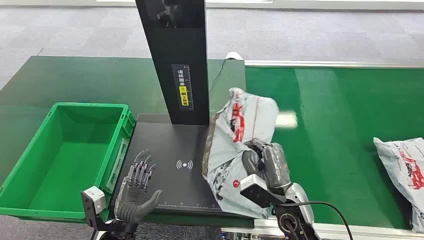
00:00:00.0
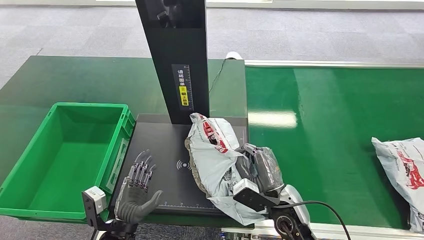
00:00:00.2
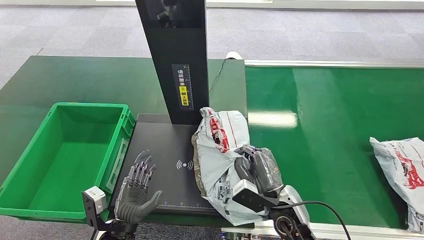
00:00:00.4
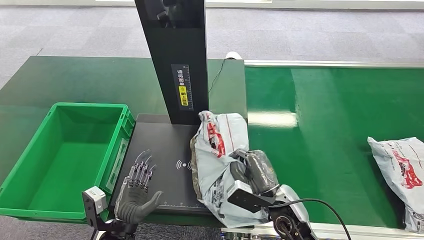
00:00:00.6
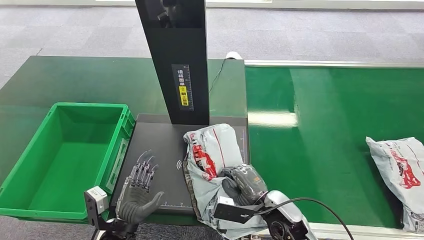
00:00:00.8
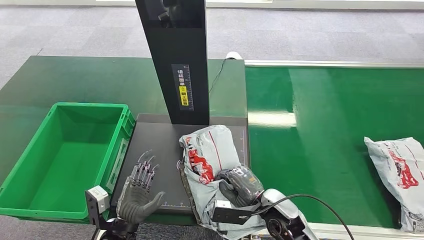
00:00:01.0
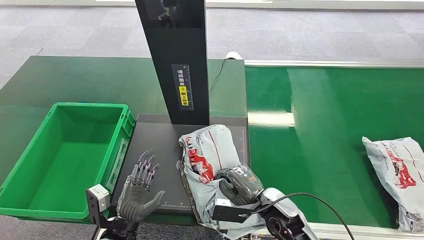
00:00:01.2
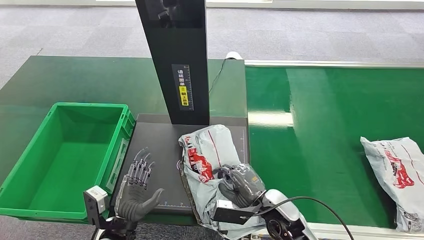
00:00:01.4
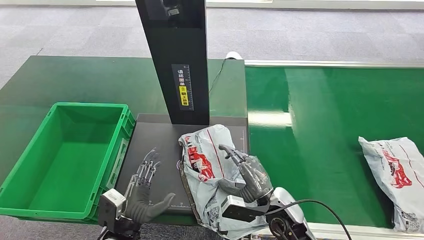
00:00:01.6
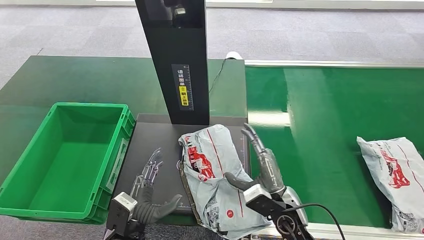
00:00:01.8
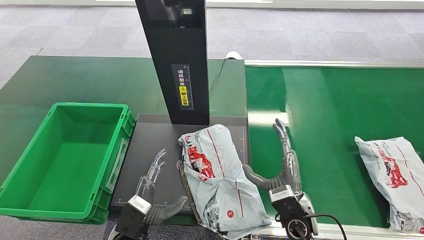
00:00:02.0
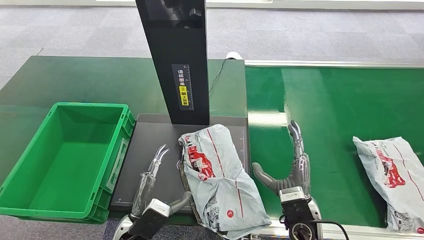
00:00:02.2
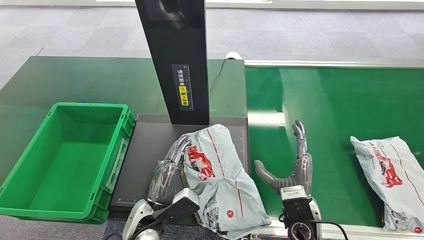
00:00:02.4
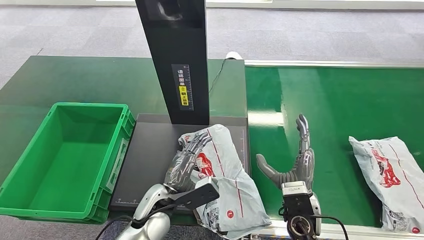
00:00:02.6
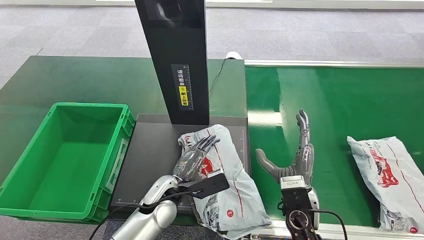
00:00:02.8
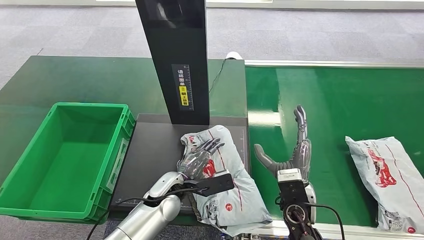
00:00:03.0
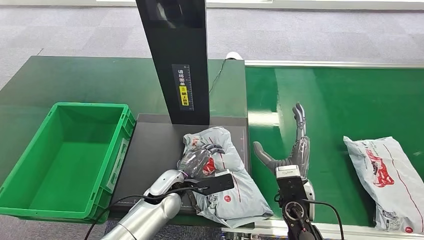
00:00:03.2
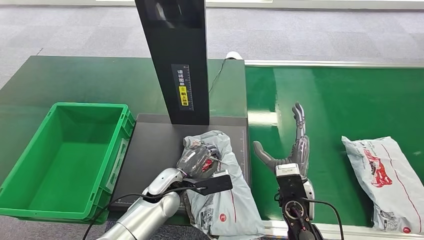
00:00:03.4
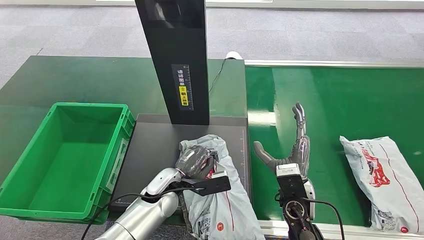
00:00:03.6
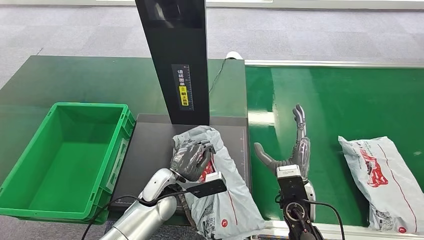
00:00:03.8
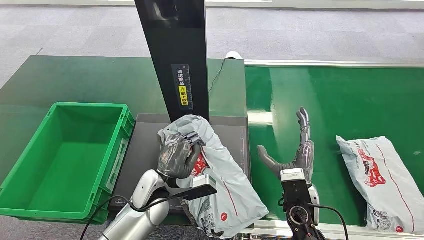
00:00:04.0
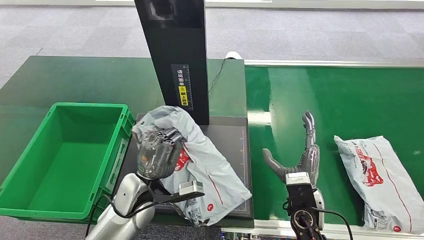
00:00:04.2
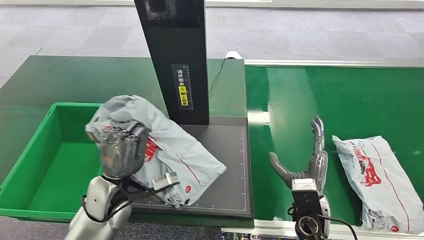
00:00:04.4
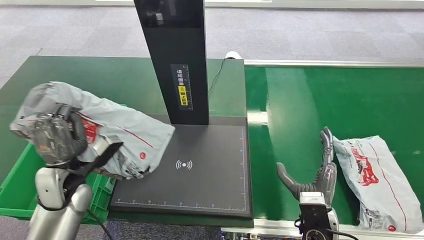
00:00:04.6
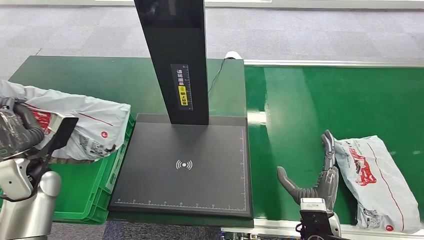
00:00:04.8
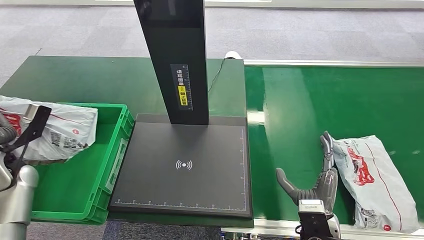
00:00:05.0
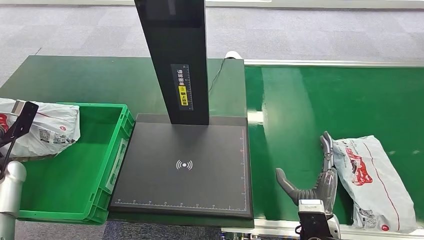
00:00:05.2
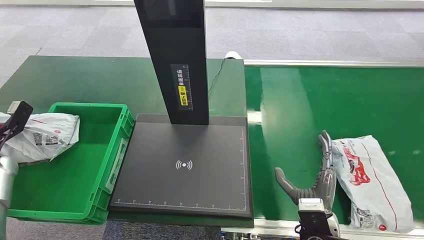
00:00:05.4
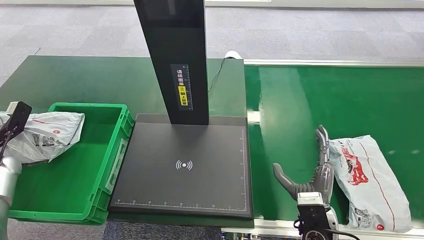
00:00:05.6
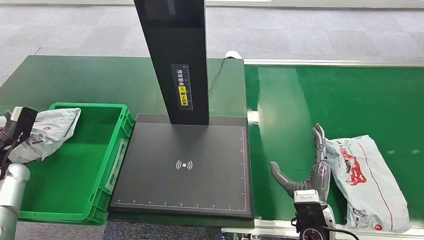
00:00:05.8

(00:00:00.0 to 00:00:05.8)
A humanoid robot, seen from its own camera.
00:00:01.4 - 00:00:02.8: The left hand goes about 15 cm forward and to the right, while the right hand changes place by some 5 cm.
